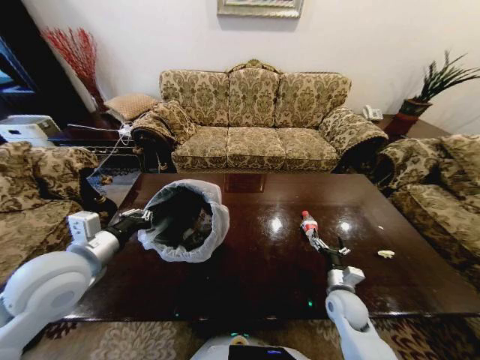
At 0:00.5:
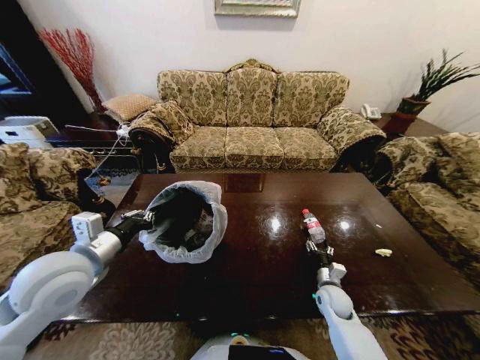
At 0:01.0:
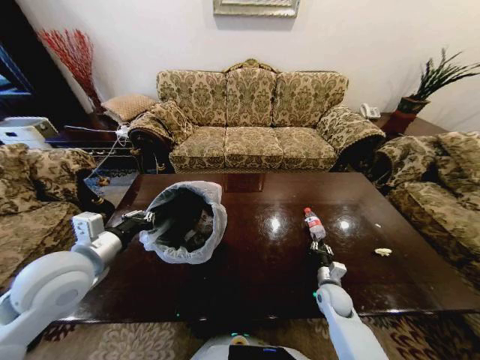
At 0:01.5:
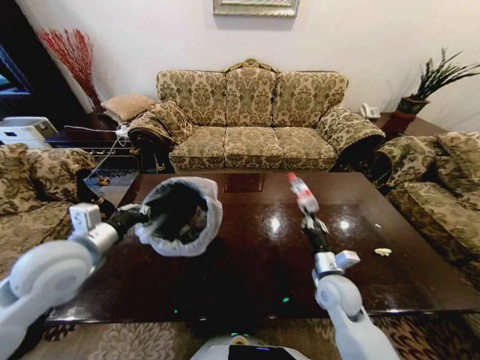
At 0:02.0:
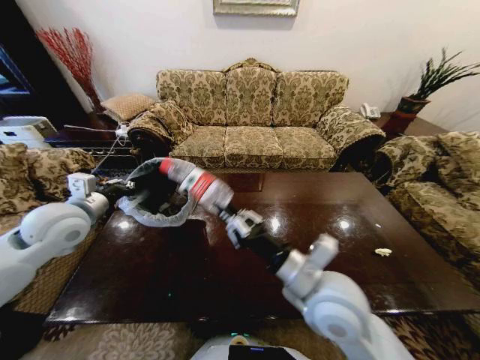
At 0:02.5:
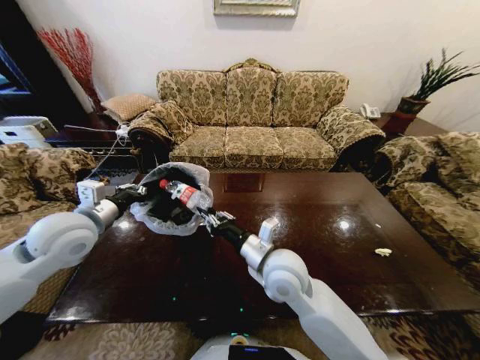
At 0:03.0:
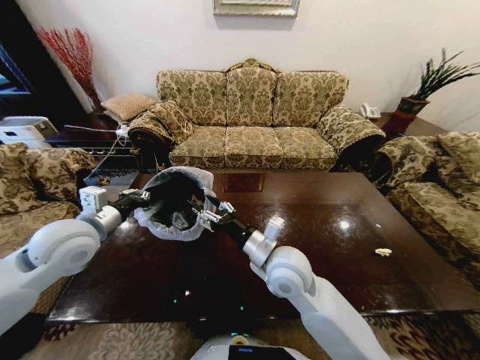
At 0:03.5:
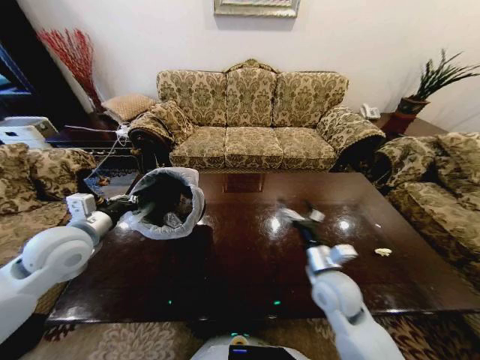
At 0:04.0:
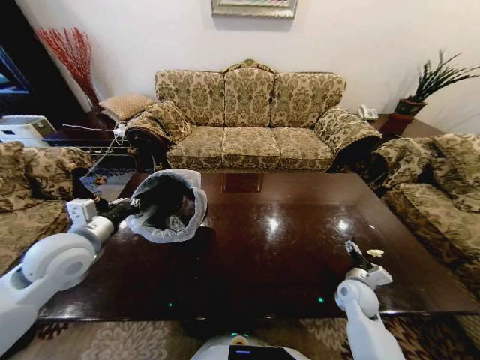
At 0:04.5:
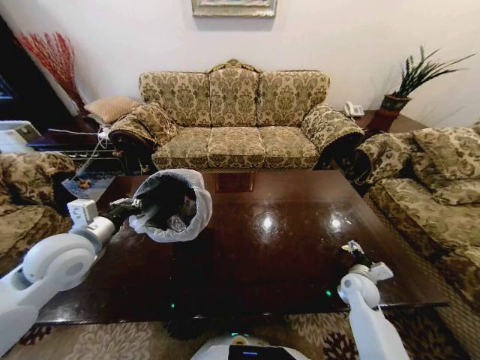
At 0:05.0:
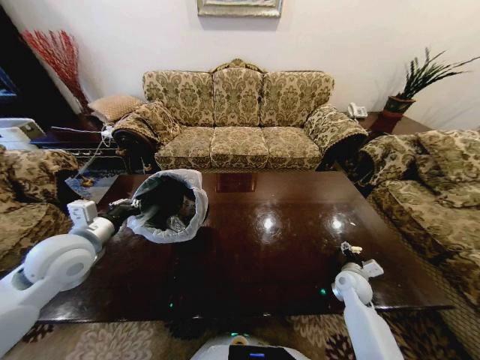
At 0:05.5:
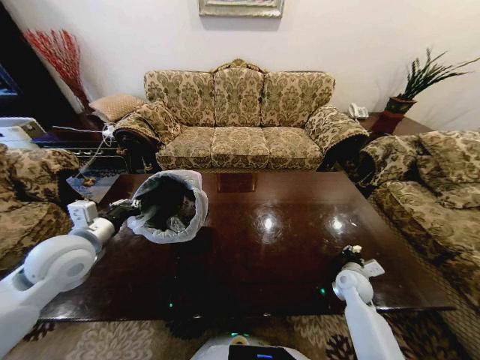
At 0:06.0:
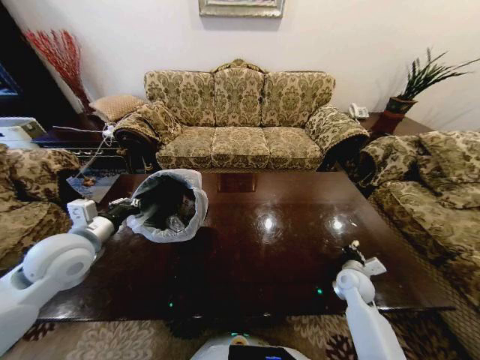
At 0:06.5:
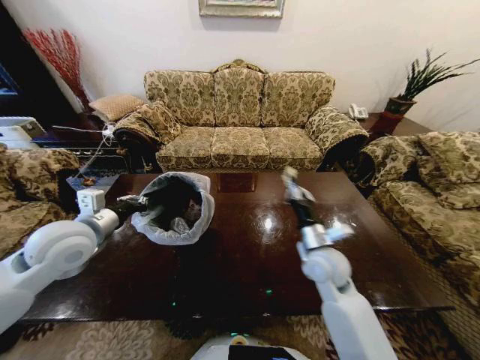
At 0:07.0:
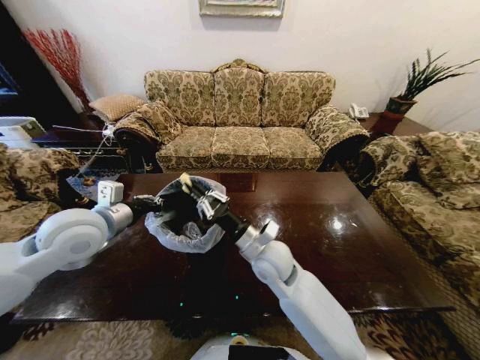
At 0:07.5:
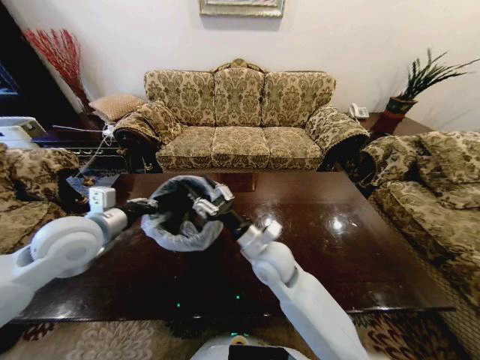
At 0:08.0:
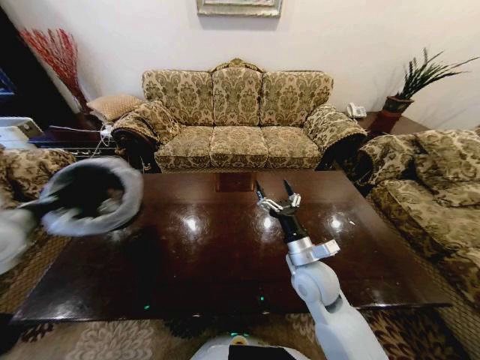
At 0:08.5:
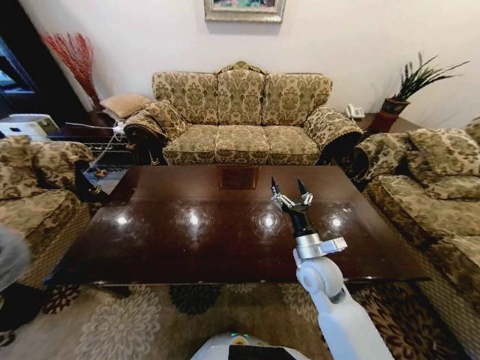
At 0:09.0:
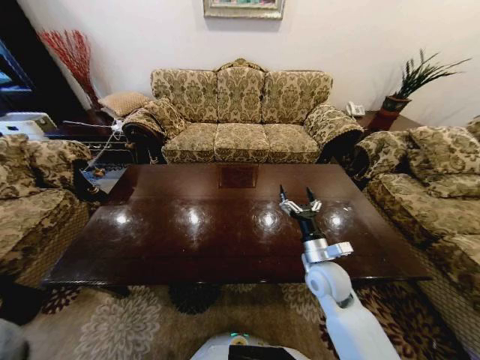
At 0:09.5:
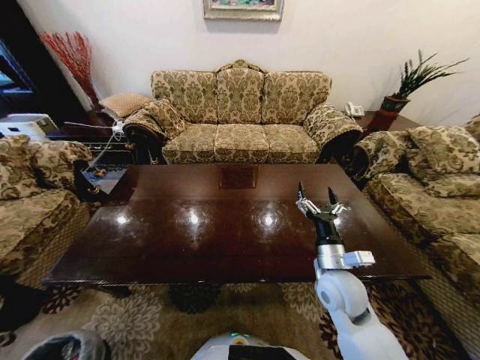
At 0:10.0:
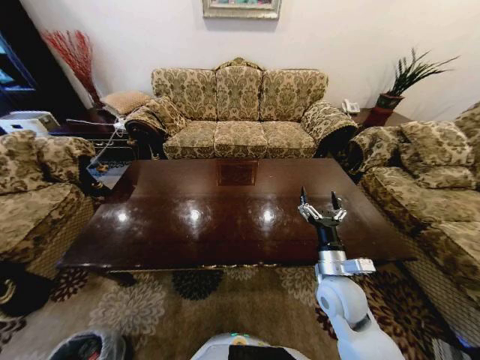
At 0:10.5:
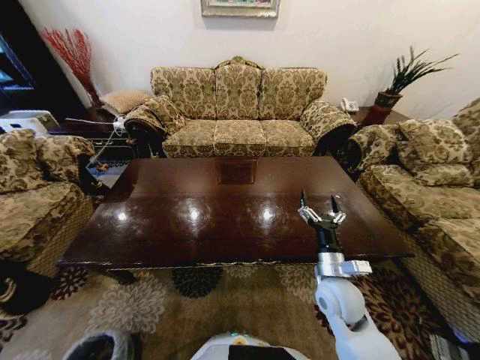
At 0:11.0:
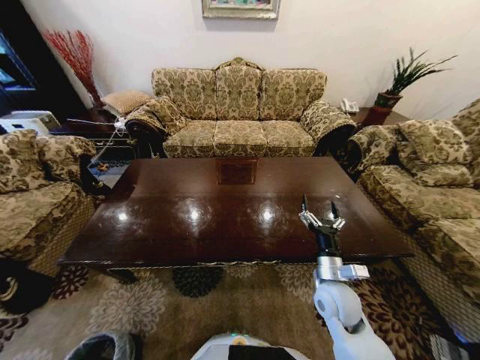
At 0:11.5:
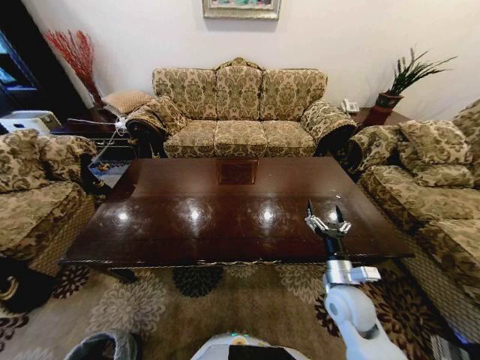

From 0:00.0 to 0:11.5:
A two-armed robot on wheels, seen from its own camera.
Task of the whole recording: Move to the front of the table and place the trash on the table into the trash bin.
From 0:00.0 to 0:02.0: The left gripper heads forward and to the left, covering approximately 10 cm. Meanwhile the right gripper goes approximately 30 cm upward and to the left, and closes.
From 0:02.0 to 0:04.0: The left gripper changes place by some 5 cm; the right gripper goes some 30 cm downward and to the right, and opens up.
From 0:04.0 to 0:06.0: The right gripper closes its fingers.
From 0:06.0 to 0:07.5: The left gripper moves roughly 5 cm. The right gripper shifts about 35 cm to the left and upward, and opens up.
From 0:07.5 to 0:09.5: The left gripper heads downward, backward and to the left, covering about 60 cm, while the right gripper heads to the right, covering about 15 cm, and opens its fingers.
From 0:09.5 to 0:11.5: The right gripper changes place by roughly 5 cm, while the left gripper is displaced to the right and backward by some 10 cm, and opens up.

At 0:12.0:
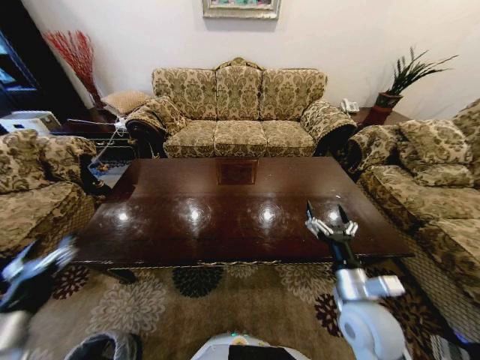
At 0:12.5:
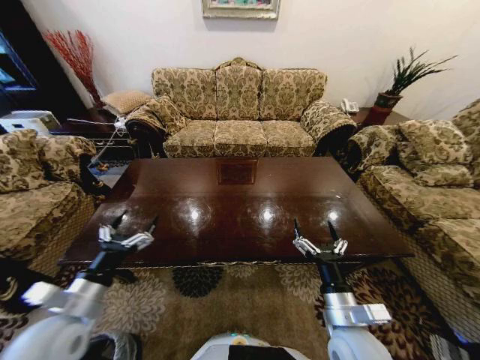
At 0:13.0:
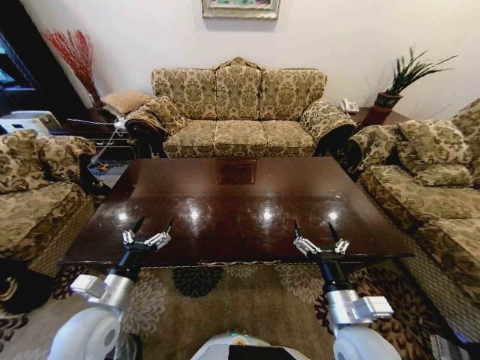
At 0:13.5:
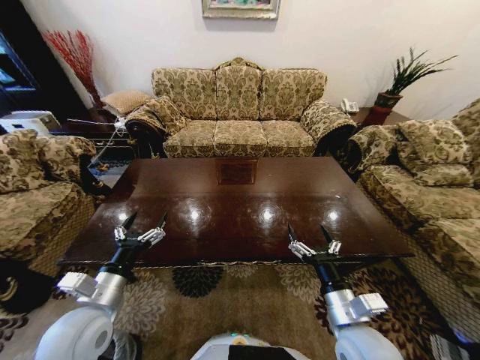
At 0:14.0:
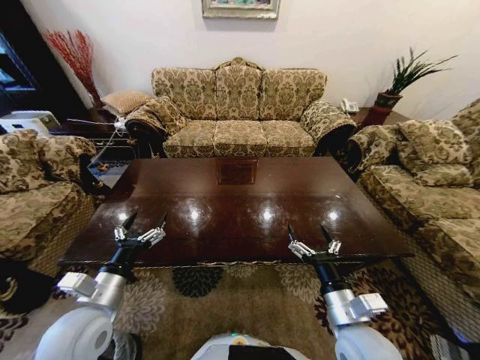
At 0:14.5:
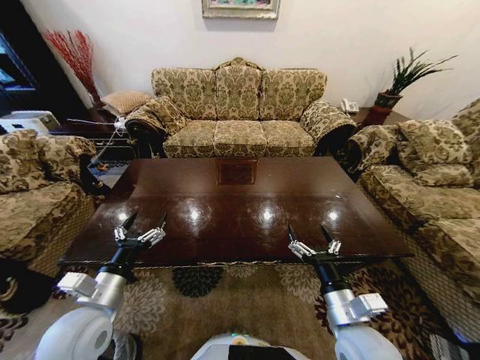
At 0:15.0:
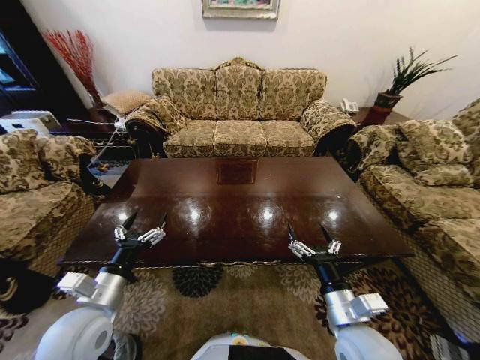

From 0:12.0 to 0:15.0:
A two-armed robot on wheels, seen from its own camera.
Task of the whole recording: Move to the front of the table and place the trash on the table into the trash bin.
From 0:12.0 to 0:13.5: The right gripper moves about 5 cm, while the left gripper heads to the right and forward, covering some 15 cm.
From 0:13.5 to 0:15.0: The two grippers keep their place.
